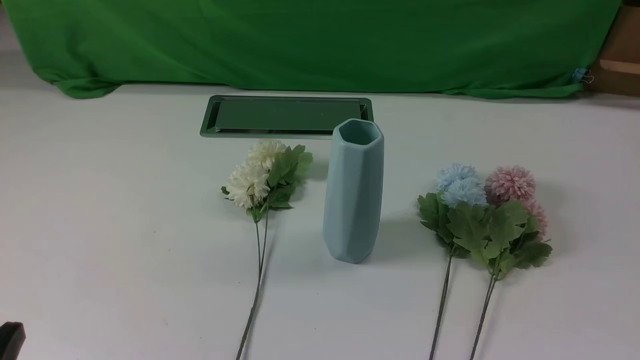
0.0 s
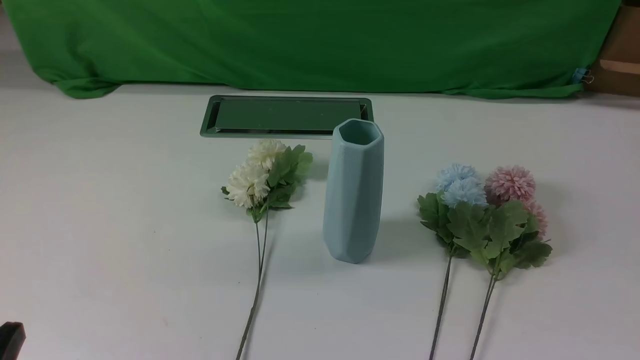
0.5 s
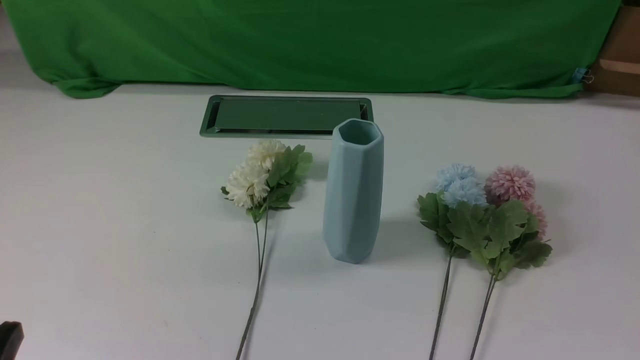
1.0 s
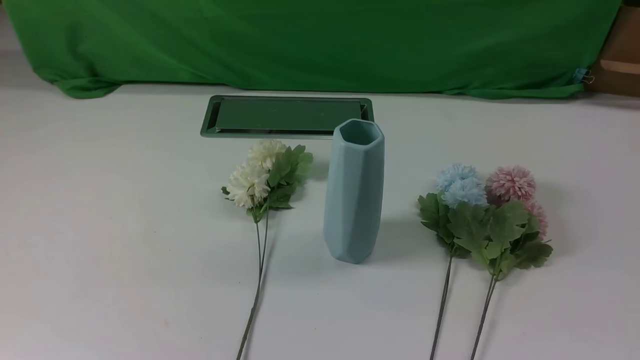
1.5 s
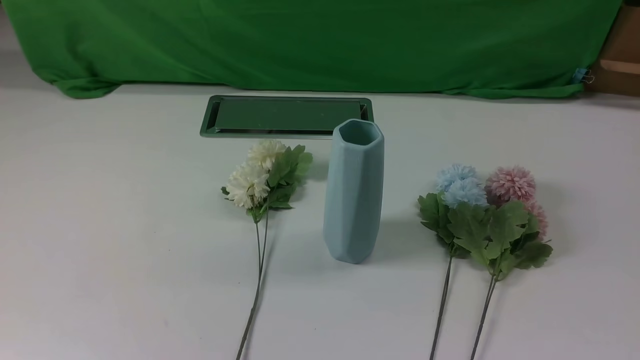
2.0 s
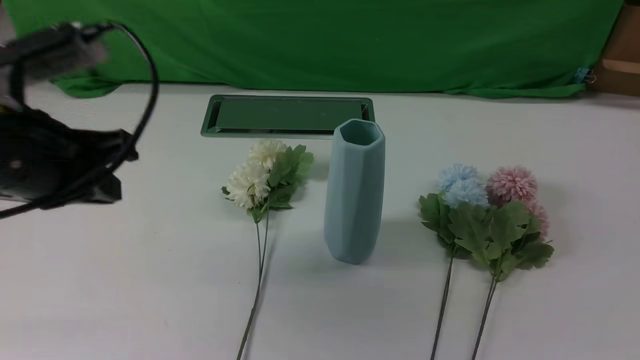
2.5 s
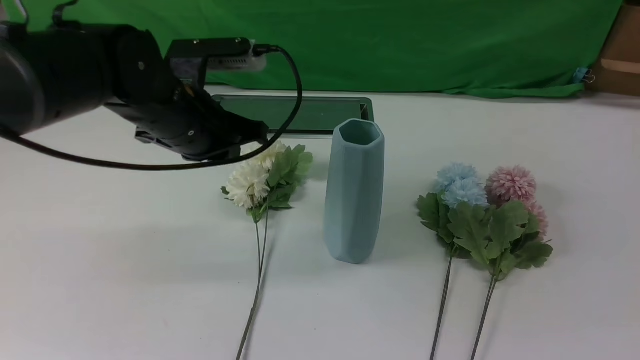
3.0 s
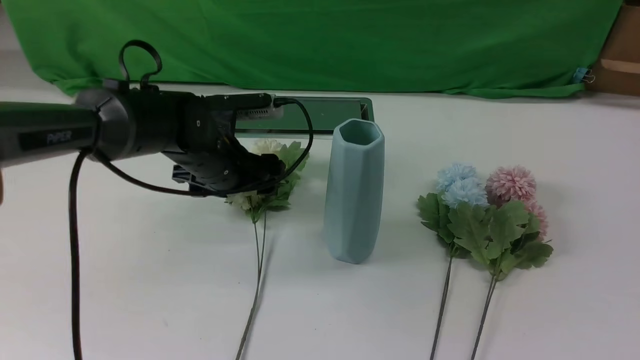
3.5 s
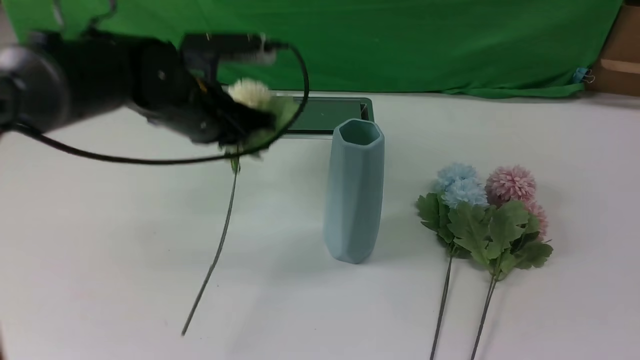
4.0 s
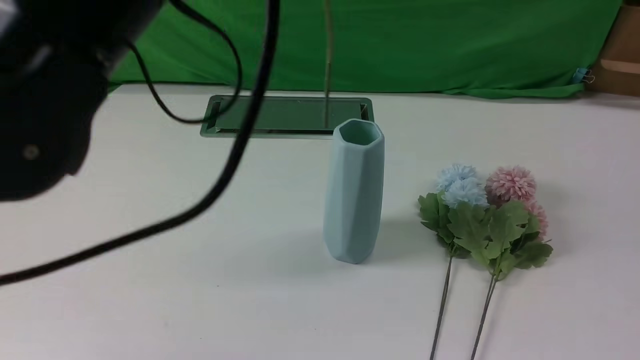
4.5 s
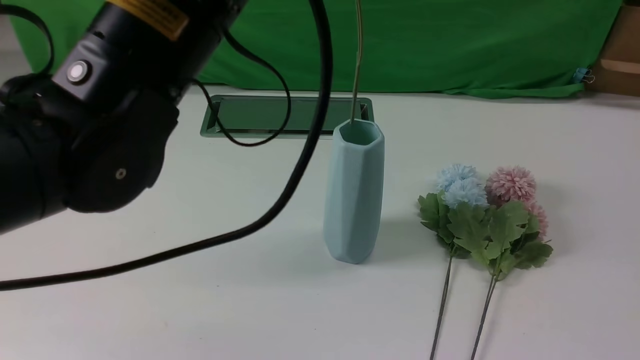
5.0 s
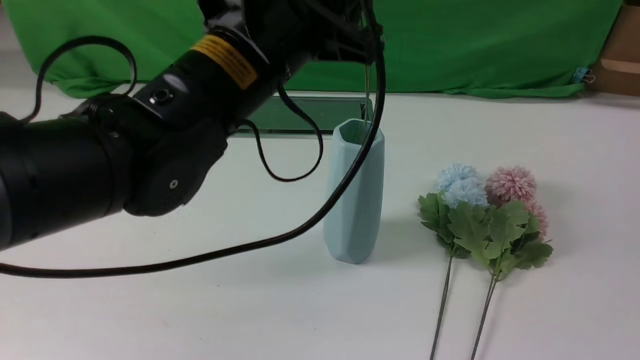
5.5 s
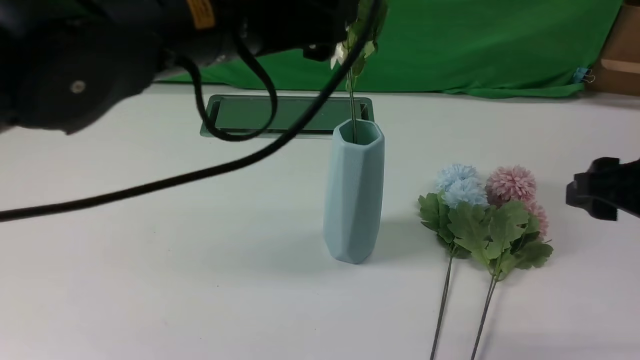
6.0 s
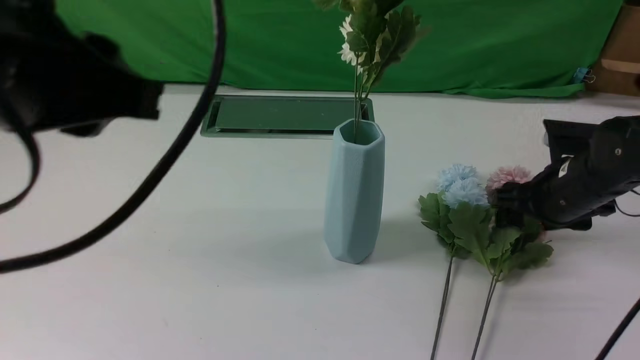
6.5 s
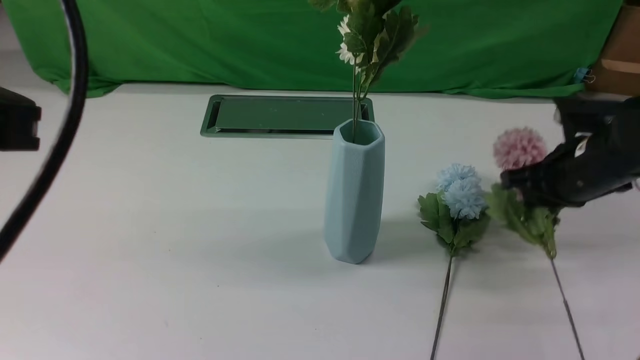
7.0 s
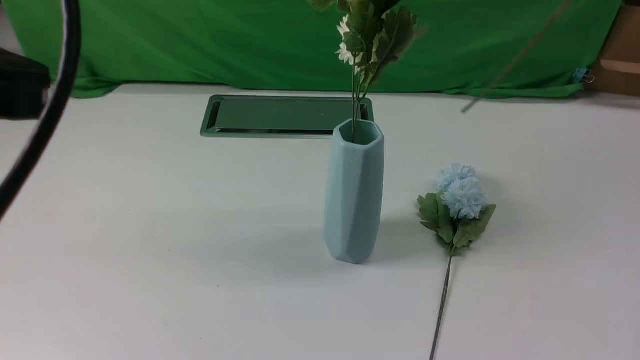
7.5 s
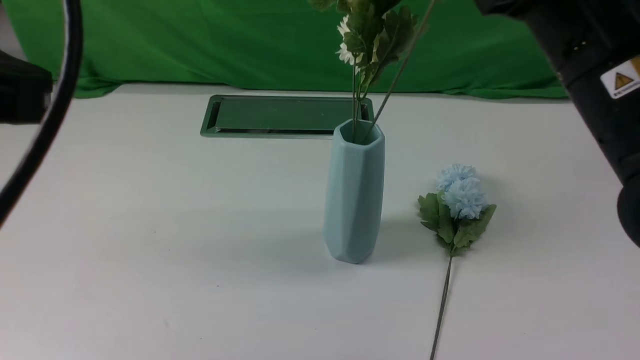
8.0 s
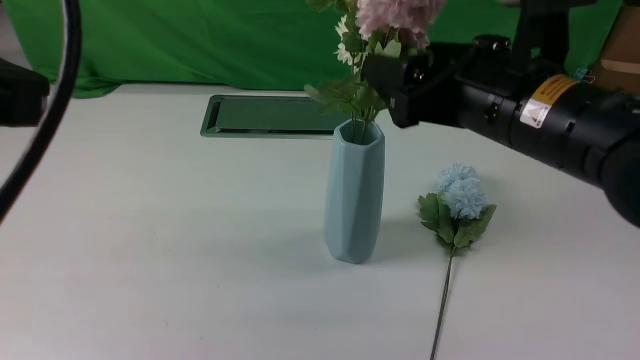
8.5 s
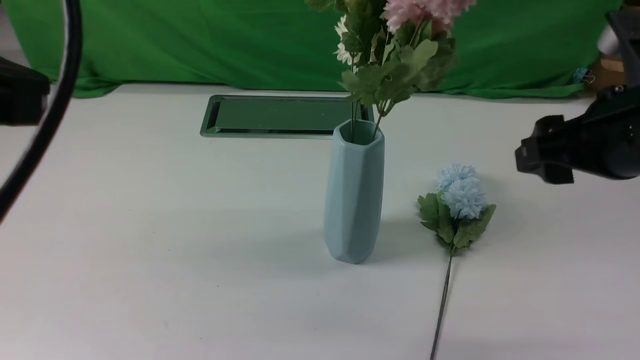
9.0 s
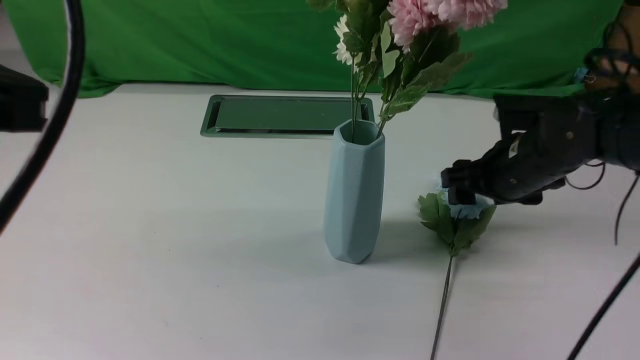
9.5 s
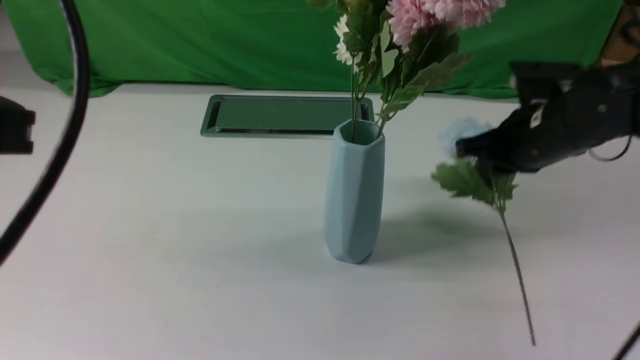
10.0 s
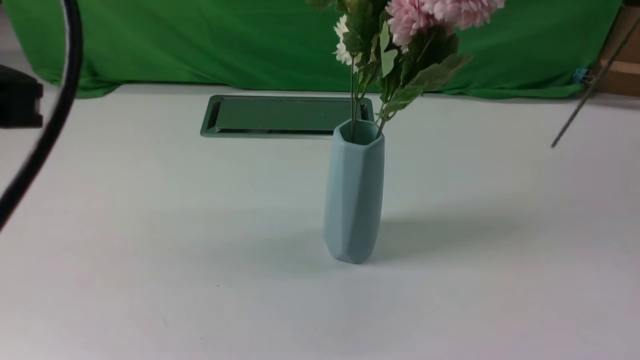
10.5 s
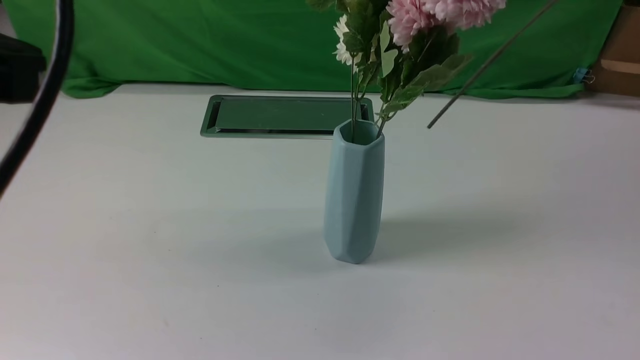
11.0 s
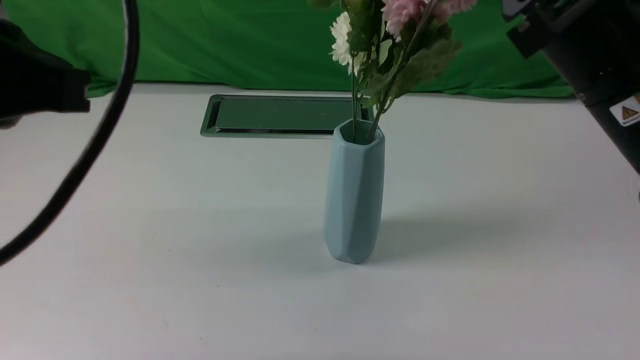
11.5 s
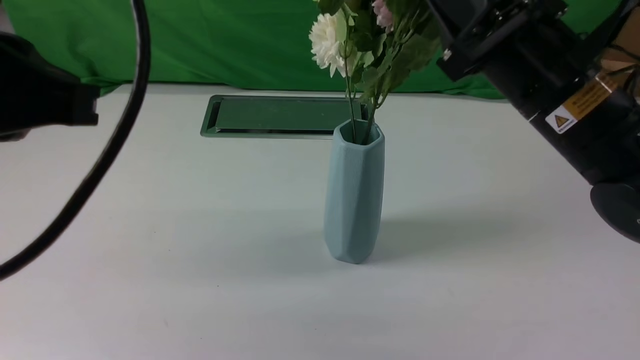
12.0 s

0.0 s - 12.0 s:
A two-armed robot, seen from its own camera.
Task of the whole recording: insert the flowers into the vase on the white table.
Step, 0.0 s - 3.5 s: use the left arm to grab a bunch of fresh flowers.
Step, 4.0 s - 5.5 s: use the left arm to insert the flowers into the vase.
Step, 6.0 s - 6.5 s: use the right arm to grab a bunch of fresh flowers.
Step, 7.0 s - 8.5 s: use the right arm to insert the flowers into the vase.
Step, 9.0 s - 9.5 s: use the right arm to grab a bunch of fresh flowers.
2.0 s - 4.0 s: The right gripper shifts roughly 15 cm upward and forward. The left gripper travels forward and to the right by roughly 35 cm, and opens, then closes again.
4.0 s - 6.0 s: The right gripper moves forward, roughly 15 cm, and opens its fingers, while the left gripper goes up and down, approximately 15 cm each way, reversing 2 times, and opens up.
6.0 s - 8.0 s: The left gripper goes about 15 cm backward and to the left, and closes up; the right gripper goes up and down, approximately 25 cm each way, reversing 2 times, and closes its fingers.
8.0 s - 10.0 s: The right gripper heads forward, downward and to the right, covering roughly 15 cm, and opens, then closes once more.
10.0 s - 12.0 s: The right gripper is displaced backward, to the left and upward by some 10 cm.

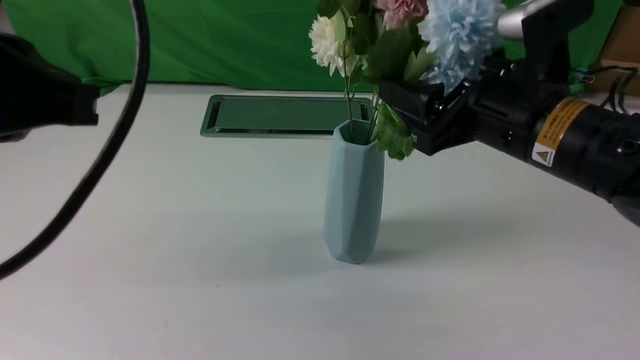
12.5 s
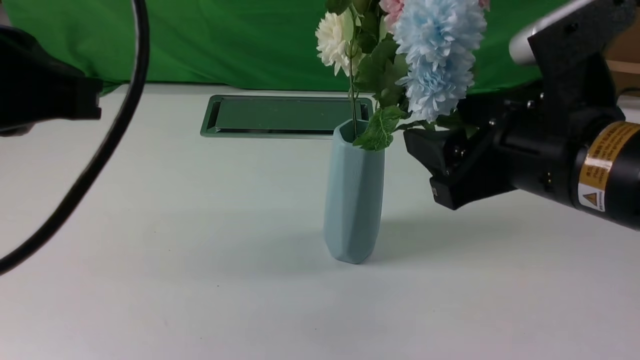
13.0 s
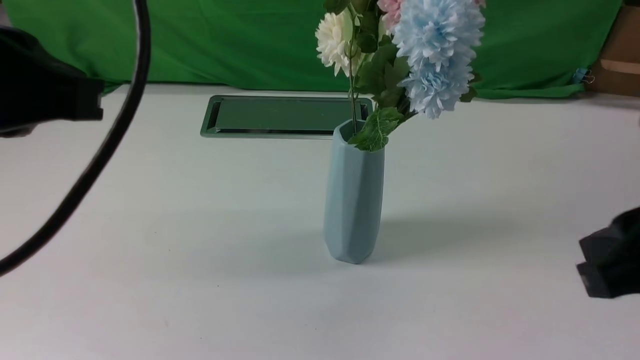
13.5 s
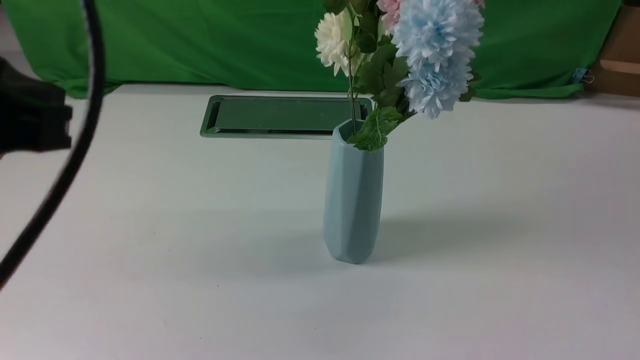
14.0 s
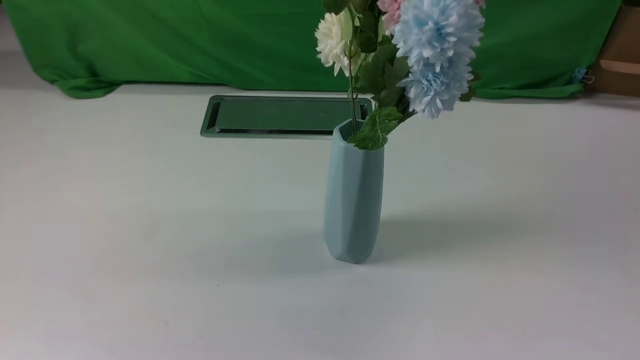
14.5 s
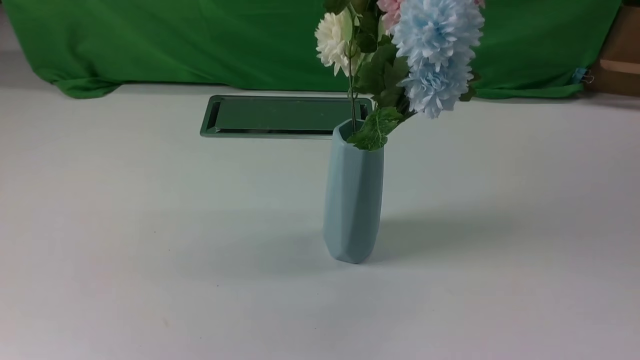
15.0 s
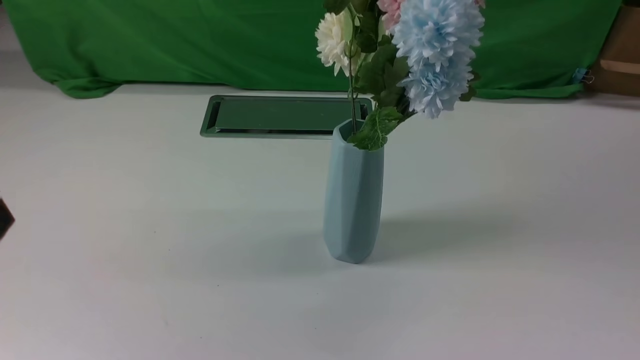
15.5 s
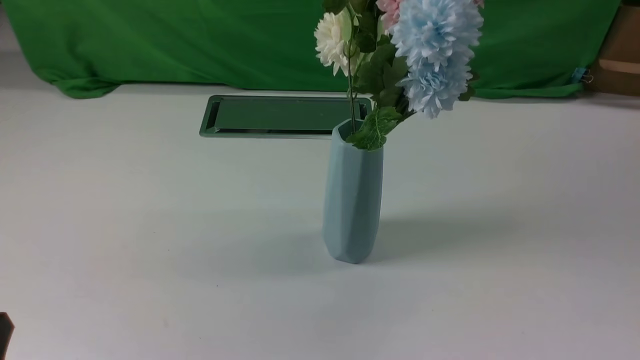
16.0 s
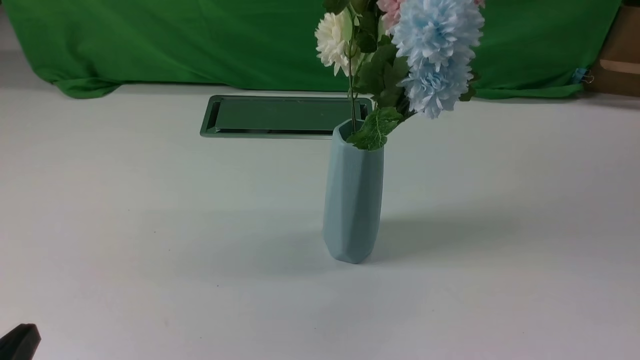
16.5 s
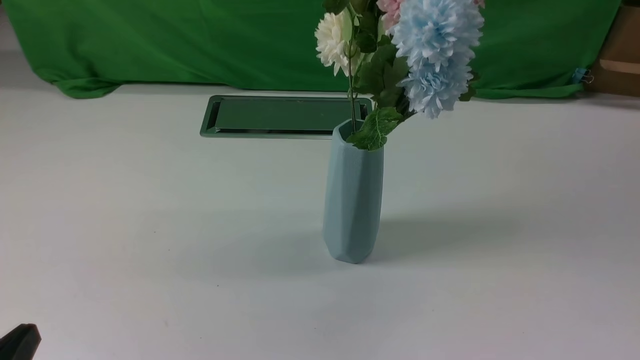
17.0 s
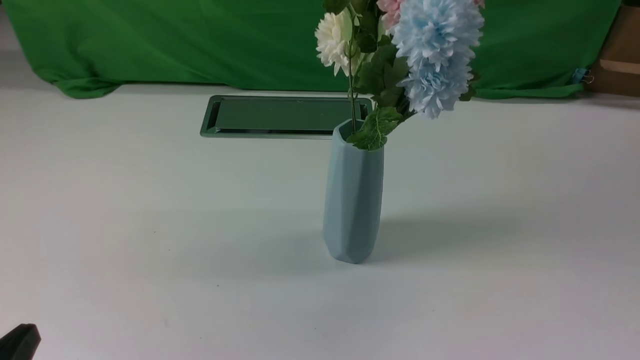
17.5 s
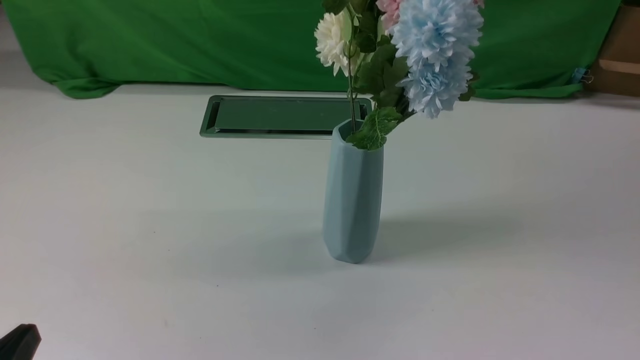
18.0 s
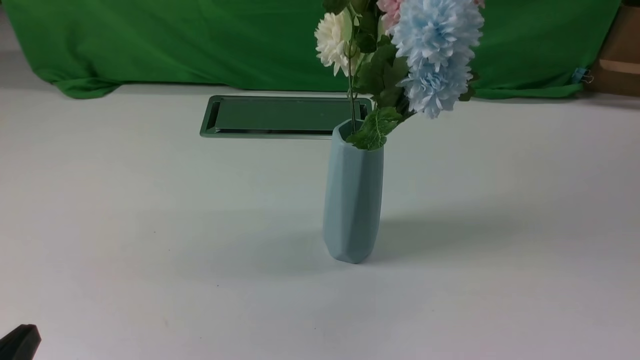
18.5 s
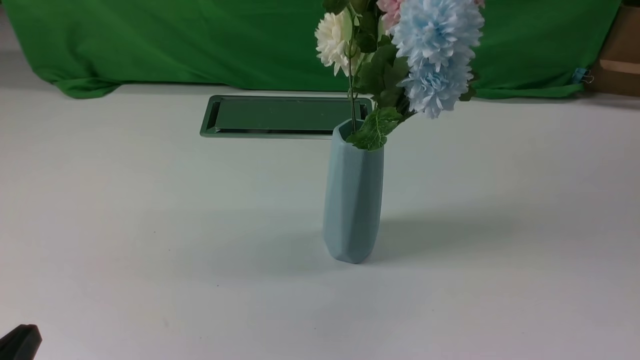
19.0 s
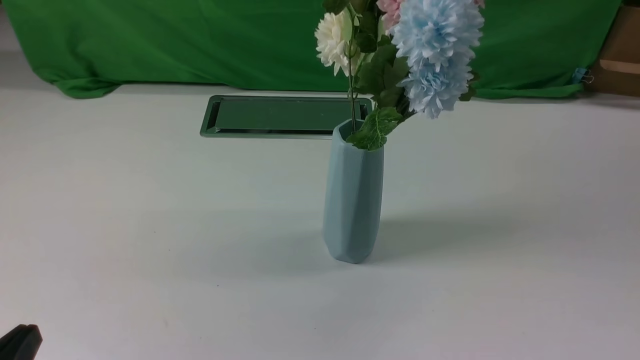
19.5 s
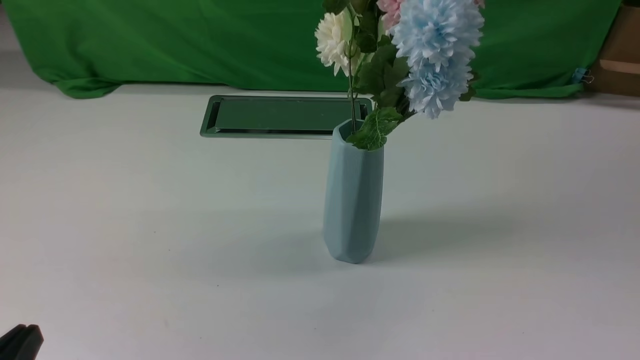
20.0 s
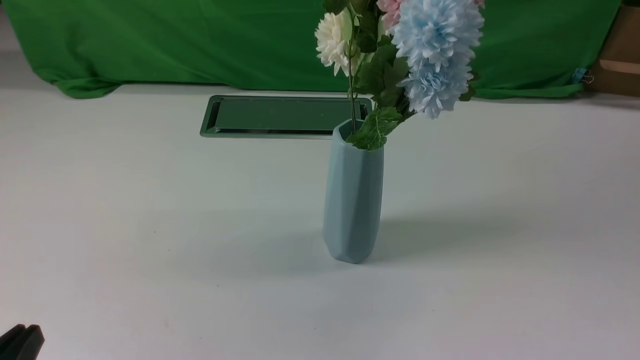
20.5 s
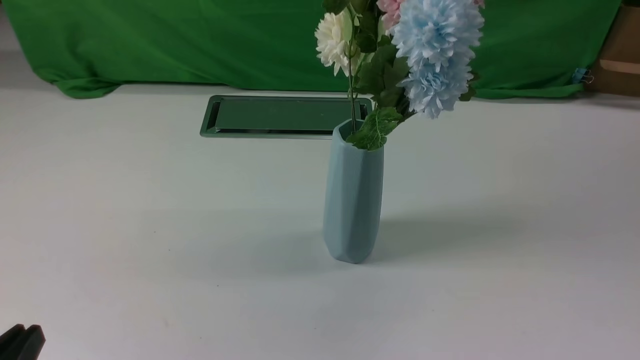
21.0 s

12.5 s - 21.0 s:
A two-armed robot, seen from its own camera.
Task of the whole recording: insert the flowers into the vase on the white table.
12.5 s - 14.5 s: The left gripper travels backward, downward and to the left by roughly 15 cm. Meanwhile the right gripper is displaced backward and to the right by some 30 cm, and closes up.
19.0 s - 21.0 s: The two grippers keep their place.
